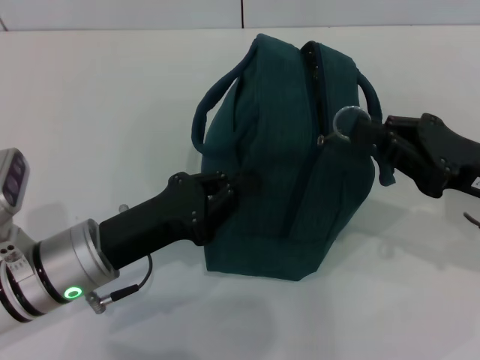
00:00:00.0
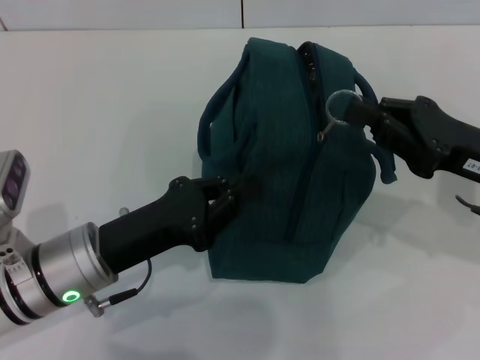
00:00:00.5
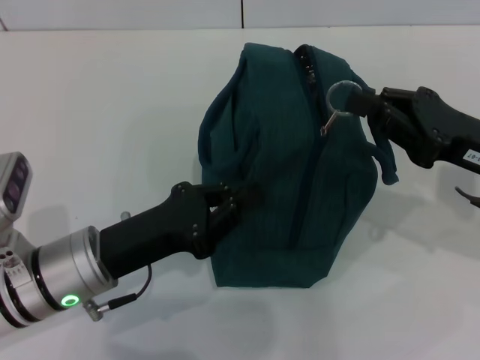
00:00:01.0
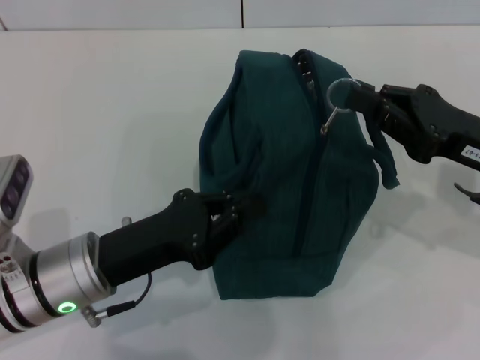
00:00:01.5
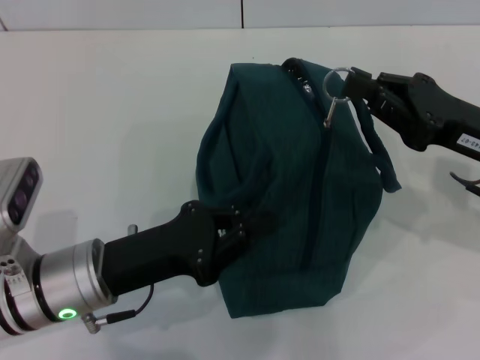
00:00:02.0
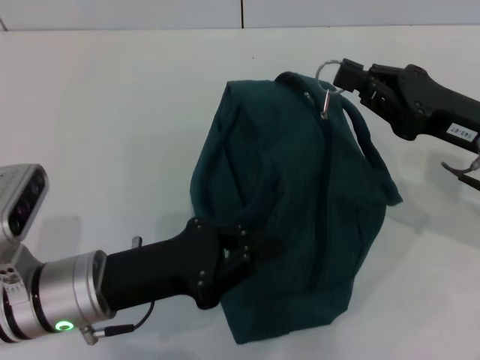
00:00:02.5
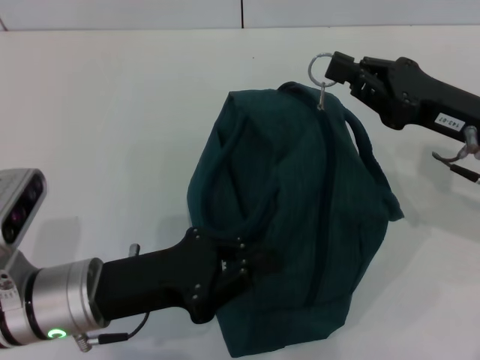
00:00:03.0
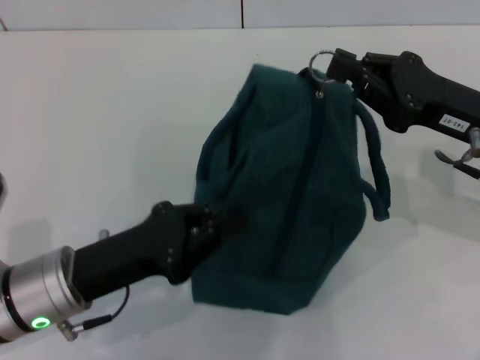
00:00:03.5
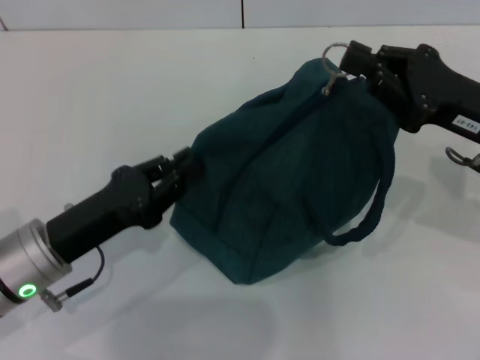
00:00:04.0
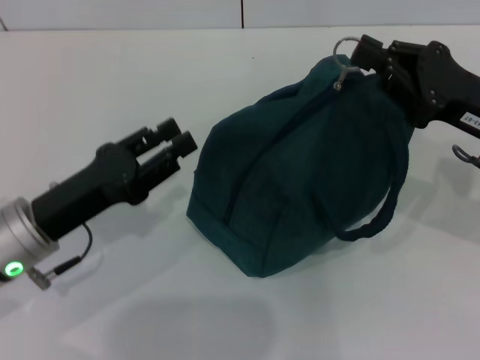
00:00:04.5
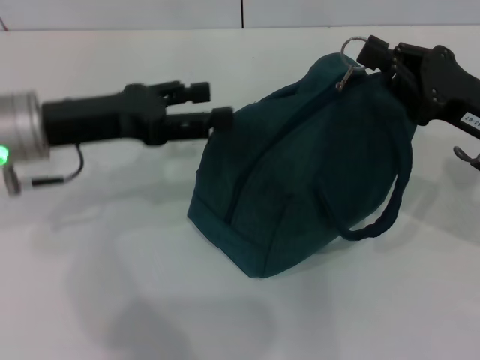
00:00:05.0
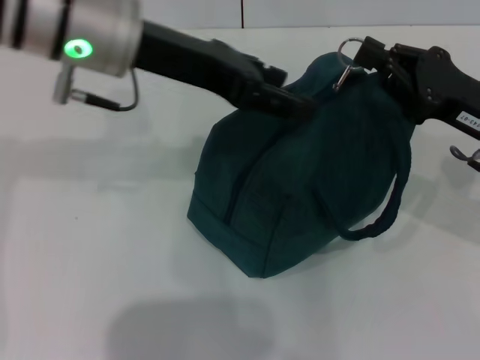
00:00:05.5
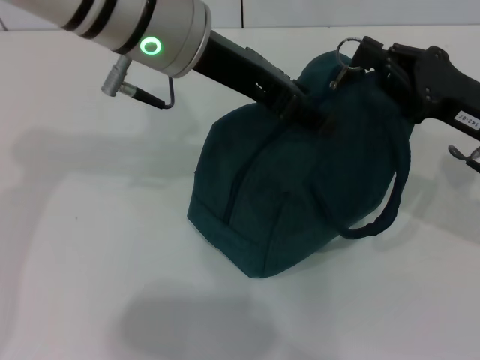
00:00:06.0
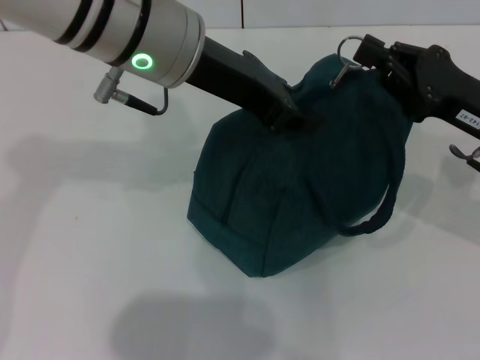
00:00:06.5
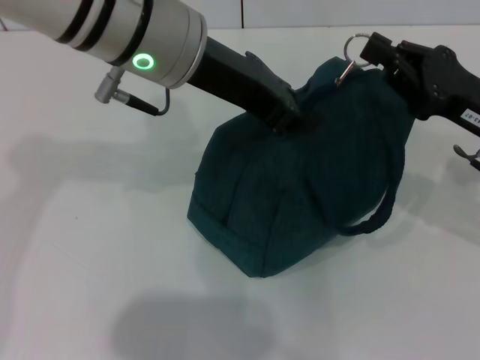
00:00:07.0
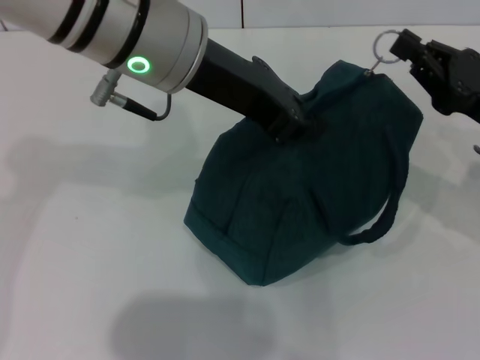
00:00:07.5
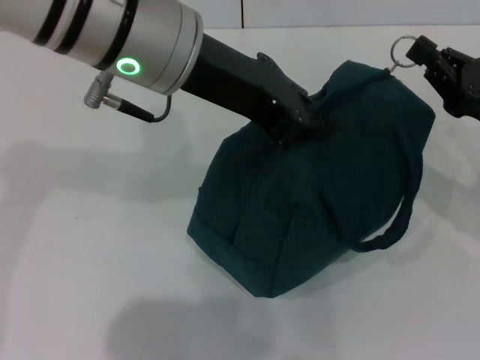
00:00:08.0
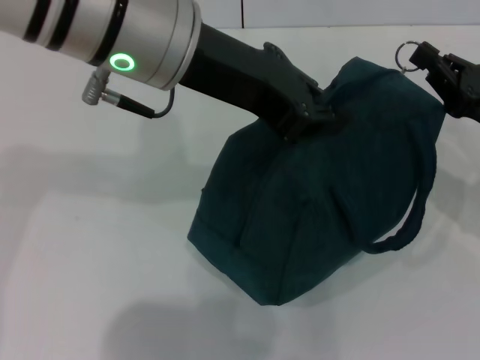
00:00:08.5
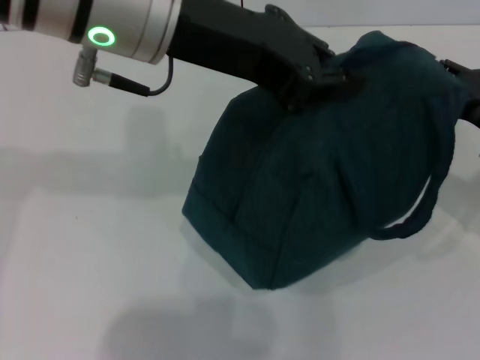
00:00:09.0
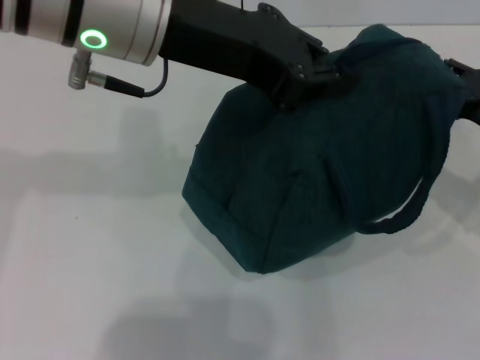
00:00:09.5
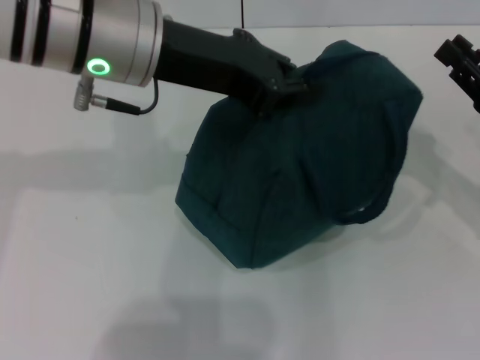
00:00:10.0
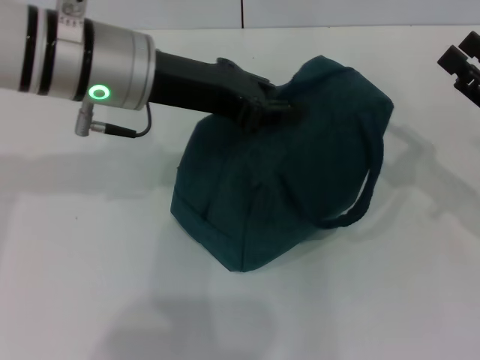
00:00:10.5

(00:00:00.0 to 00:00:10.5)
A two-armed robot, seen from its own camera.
Step, 00:00:00.0 - 00:00:09.5: Zip up the lunch bag with your right hand.
00:00:04.0 - 00:00:06.5: The left gripper travels upward, to the right and forward by roughly 25 cm, and opens up.
00:00:06.5 - 00:00:08.5: The left gripper closes.
00:00:08.5 - 00:00:10.5: The right gripper opens up, while the left gripper heads downward, covering about 5 cm.

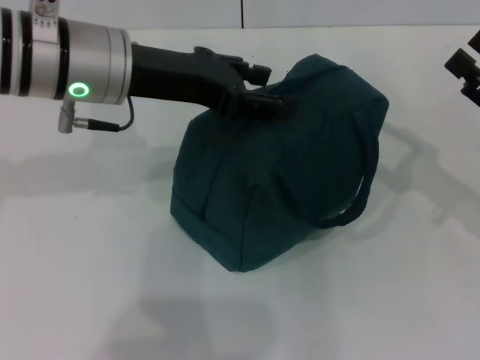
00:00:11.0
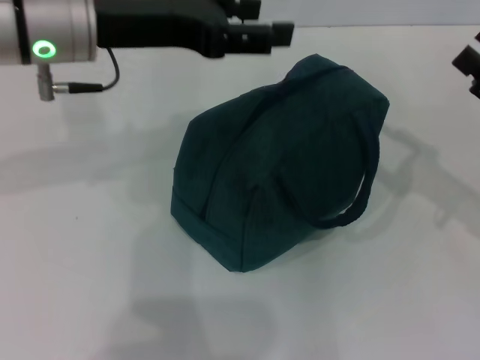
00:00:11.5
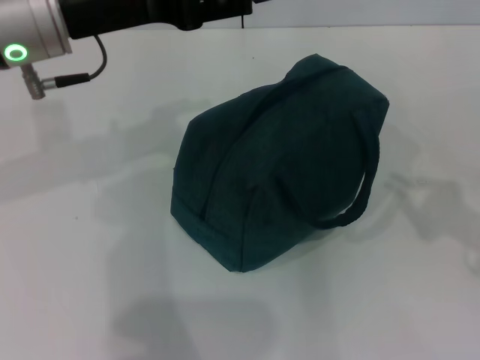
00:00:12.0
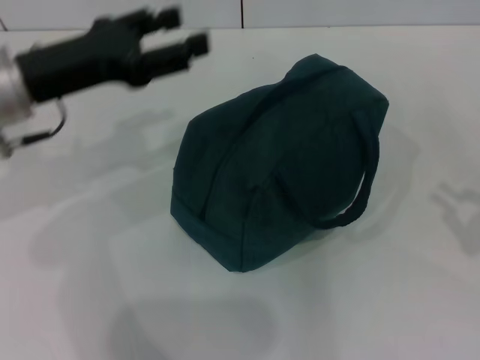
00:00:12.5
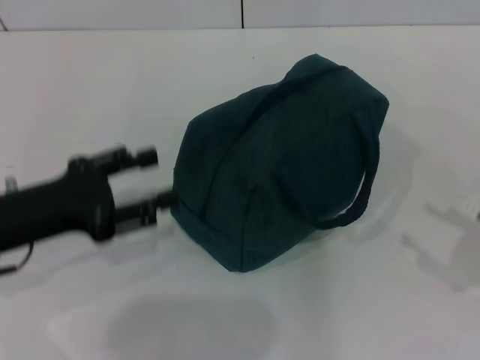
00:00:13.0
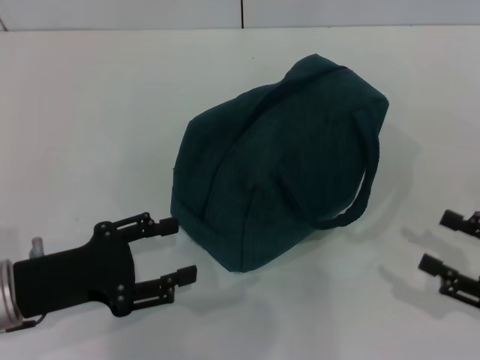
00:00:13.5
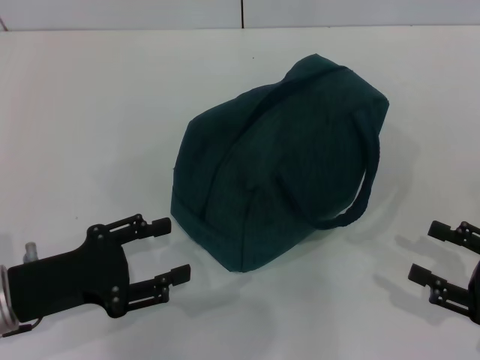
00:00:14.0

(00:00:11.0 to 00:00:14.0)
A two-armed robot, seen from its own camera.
00:00:11.0 - 00:00:12.5: The right gripper goes approximately 10 cm backward and to the right, and closes, while the left gripper goes approximately 10 cm to the left.
00:00:12.5 - 00:00:14.0: The right gripper shifts approximately 10 cm downward and to the left, and opens its fingers; the left gripper heads backward and downward, covering about 15 cm.

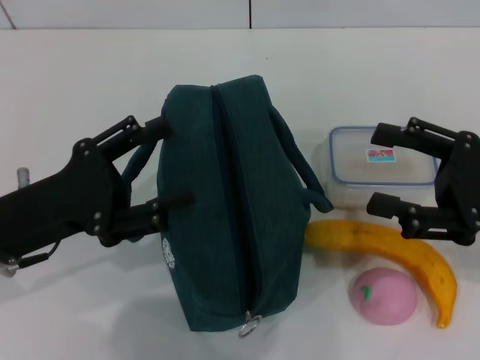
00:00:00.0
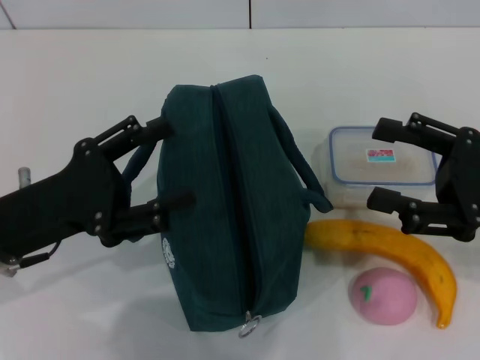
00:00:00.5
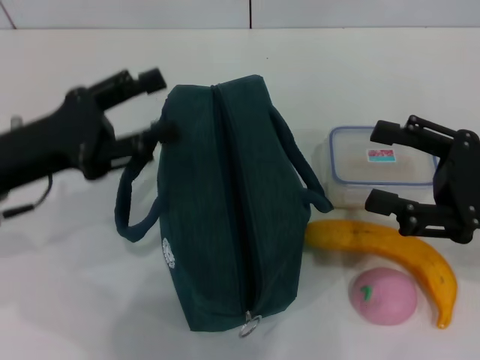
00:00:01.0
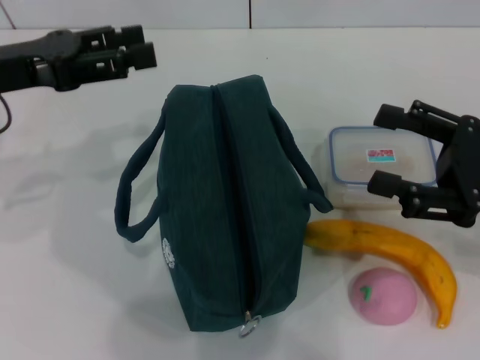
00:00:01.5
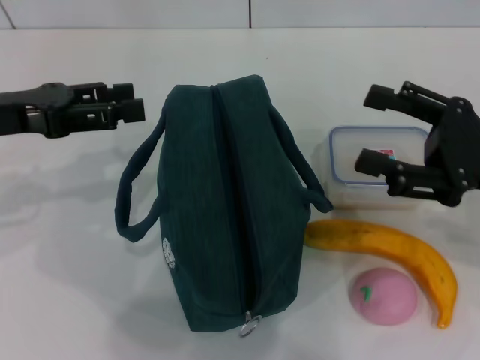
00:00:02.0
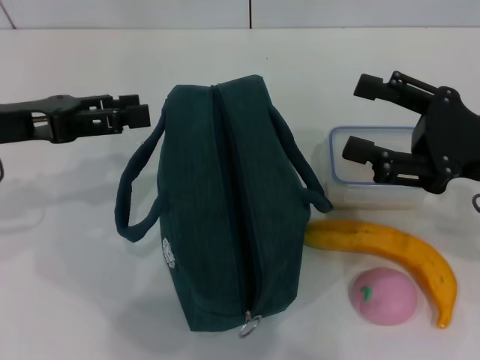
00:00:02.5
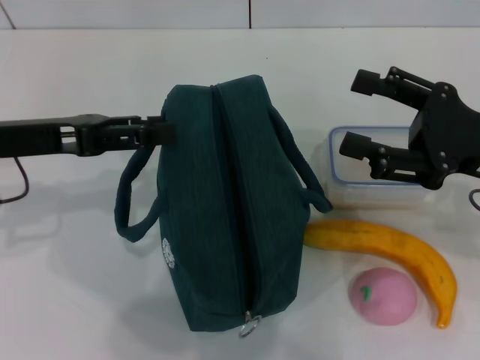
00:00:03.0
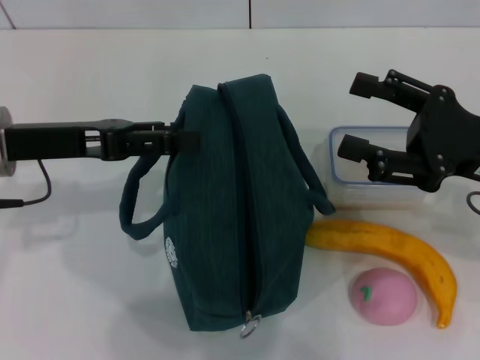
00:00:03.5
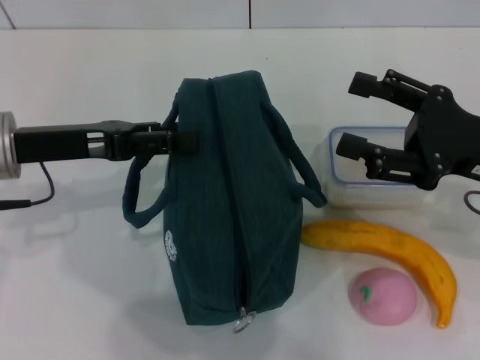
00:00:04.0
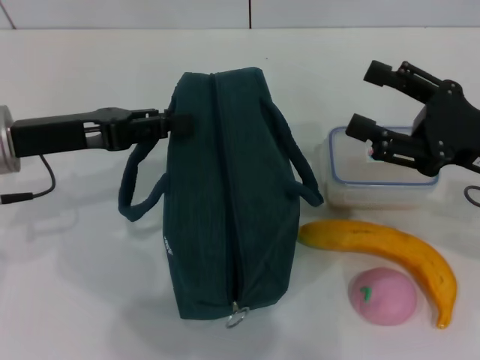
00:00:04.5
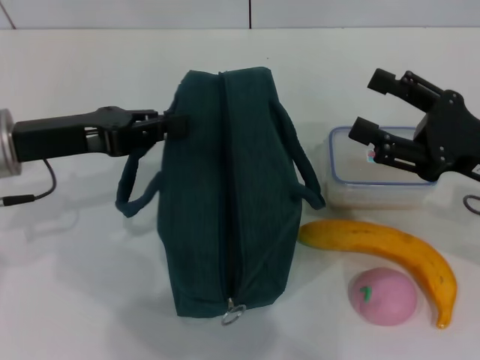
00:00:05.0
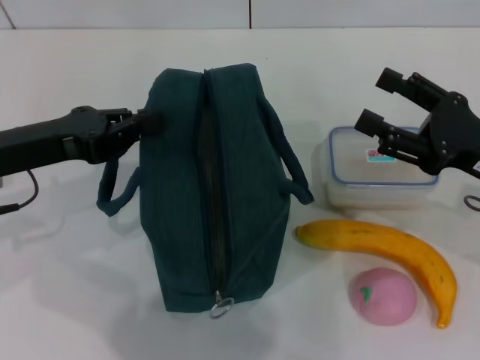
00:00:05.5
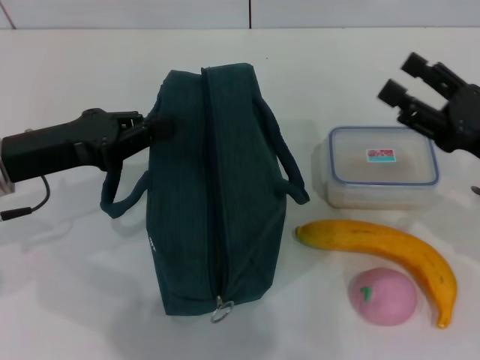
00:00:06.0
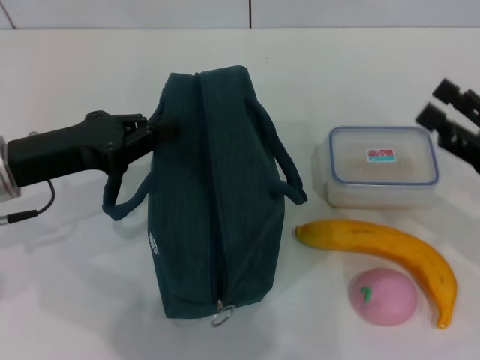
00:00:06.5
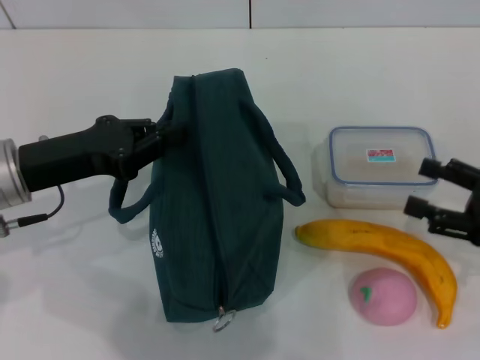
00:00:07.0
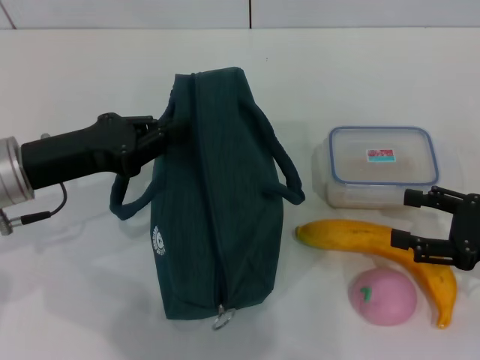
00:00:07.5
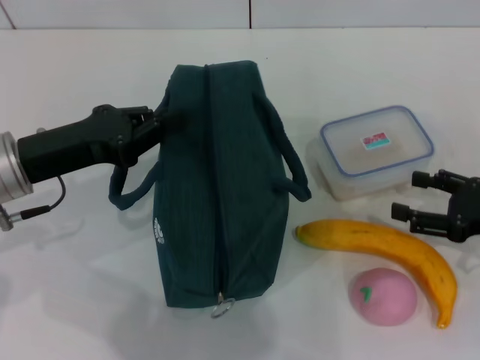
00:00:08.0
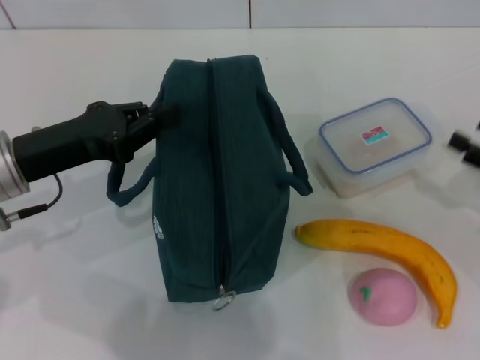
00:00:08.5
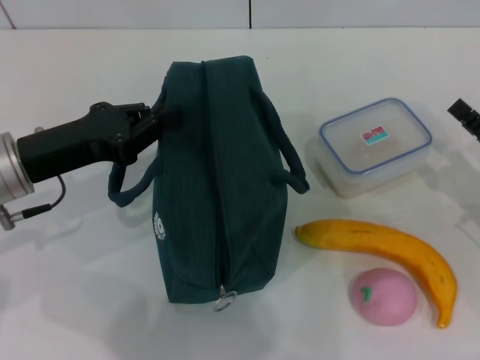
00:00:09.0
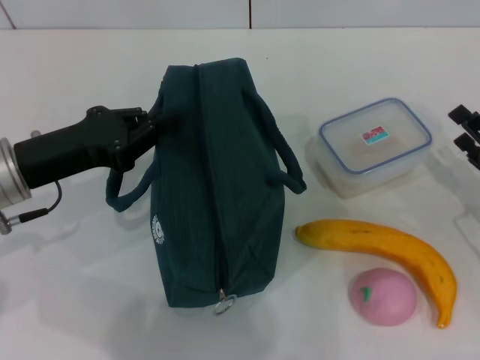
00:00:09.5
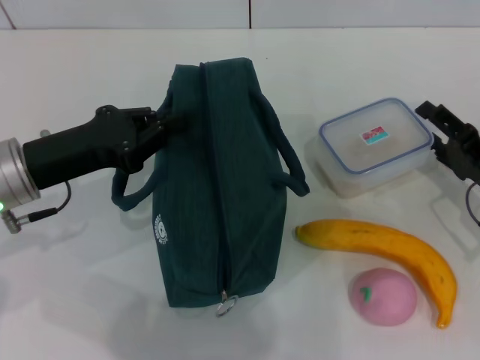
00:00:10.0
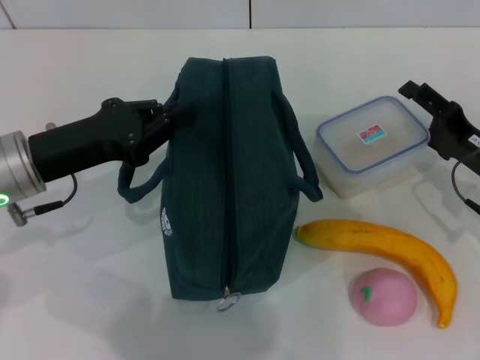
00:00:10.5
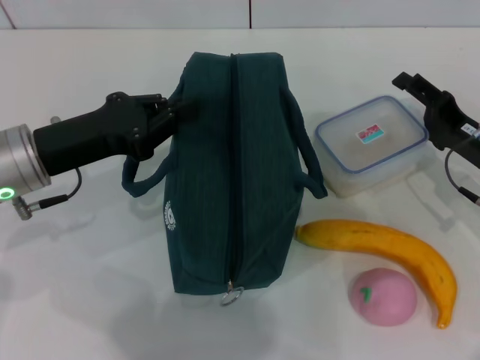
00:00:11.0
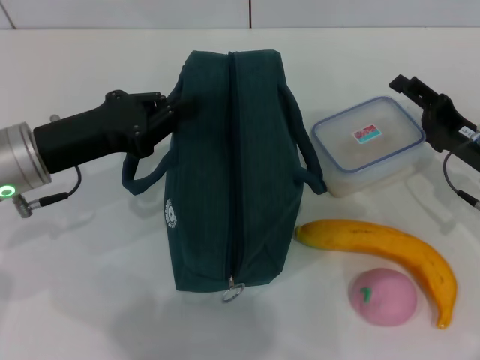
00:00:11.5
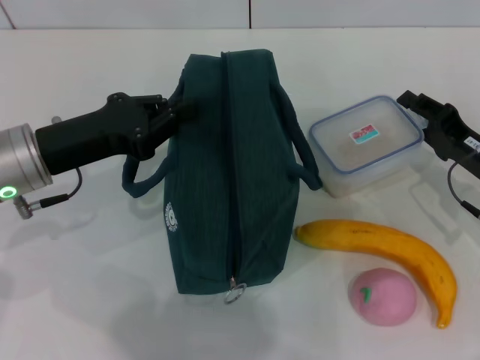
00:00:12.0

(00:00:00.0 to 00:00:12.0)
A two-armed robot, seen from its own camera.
Step, 00:00:00.0 - 00:00:05.0: Hold the lunch bag with your left hand.
00:00:00.0 - 00:00:02.0: The left gripper is displaced forward and upward by some 10 cm.
00:00:02.0 - 00:00:04.0: The left gripper changes place by some 5 cm.
00:00:04.0 - 00:00:06.0: The left gripper closes.
00:00:06.0 - 00:00:08.0: The right gripper changes place by about 5 cm.
00:00:10.0 - 00:00:12.0: The grippers move only a little.
